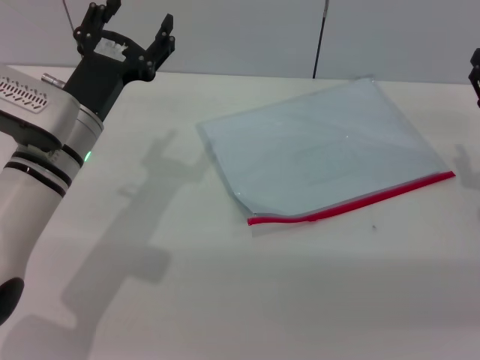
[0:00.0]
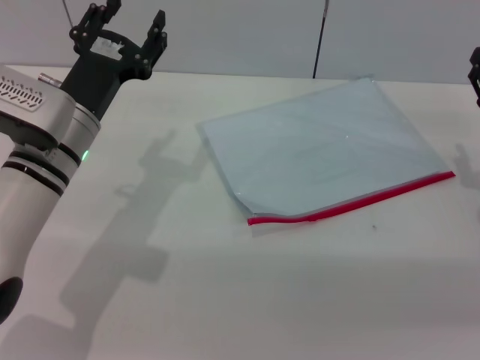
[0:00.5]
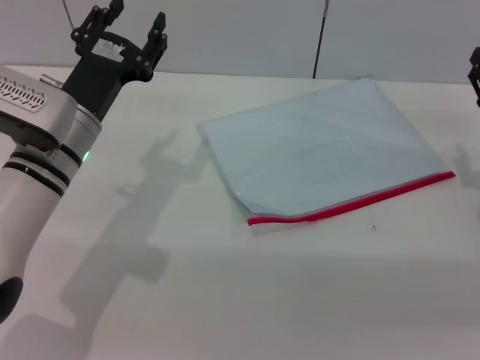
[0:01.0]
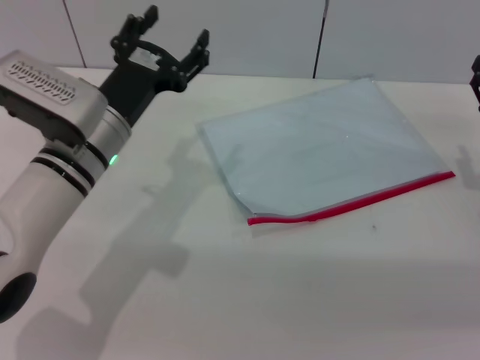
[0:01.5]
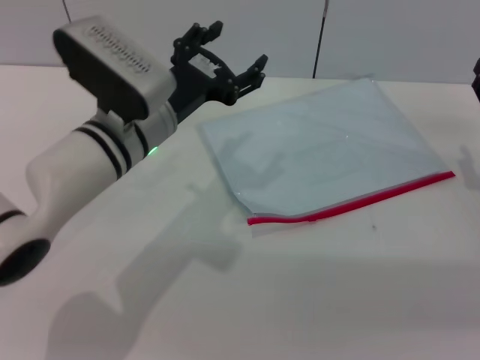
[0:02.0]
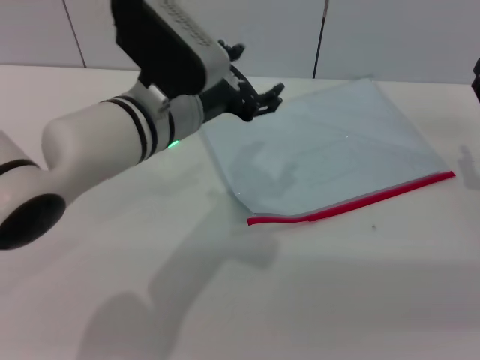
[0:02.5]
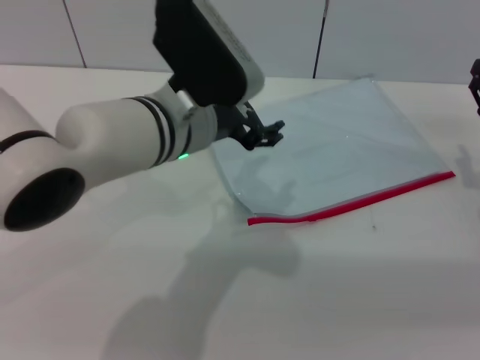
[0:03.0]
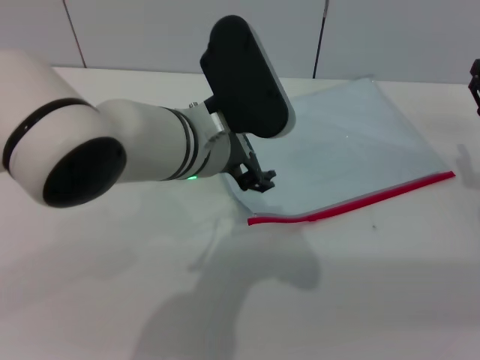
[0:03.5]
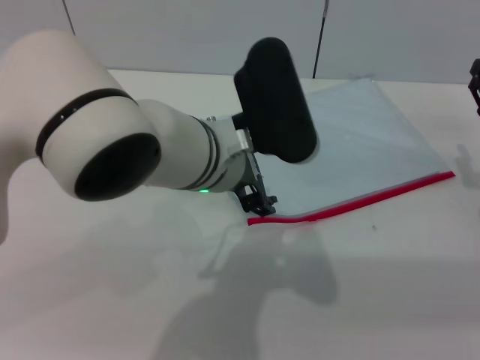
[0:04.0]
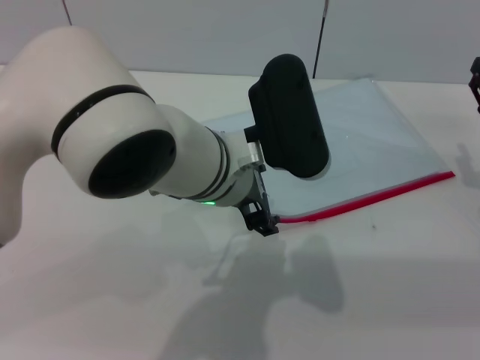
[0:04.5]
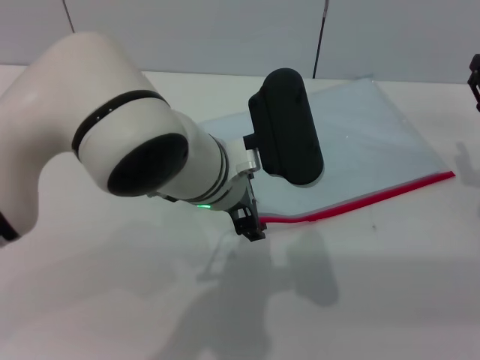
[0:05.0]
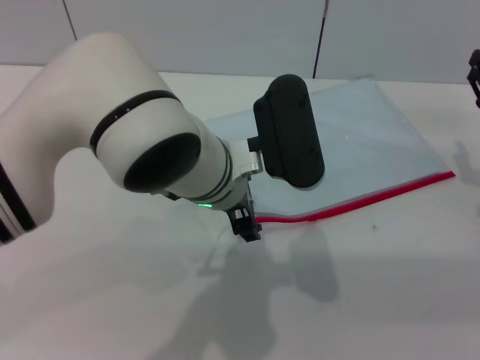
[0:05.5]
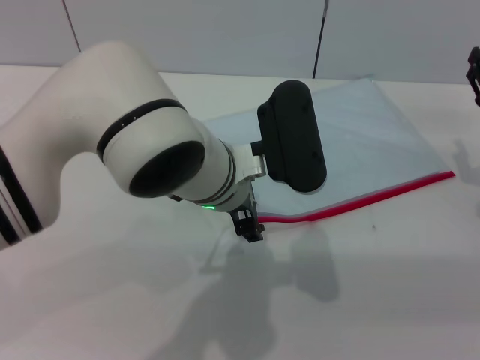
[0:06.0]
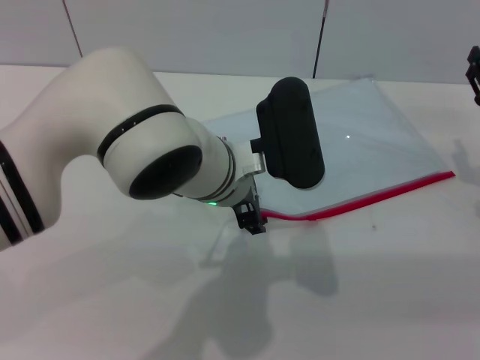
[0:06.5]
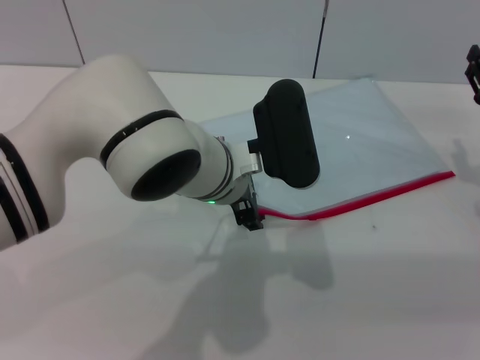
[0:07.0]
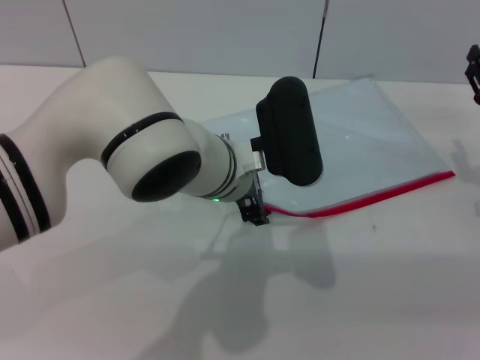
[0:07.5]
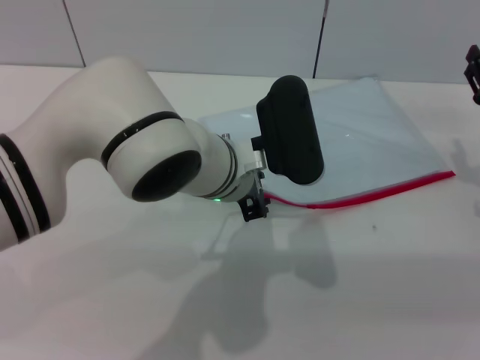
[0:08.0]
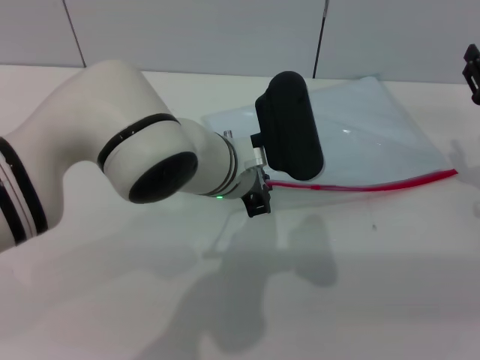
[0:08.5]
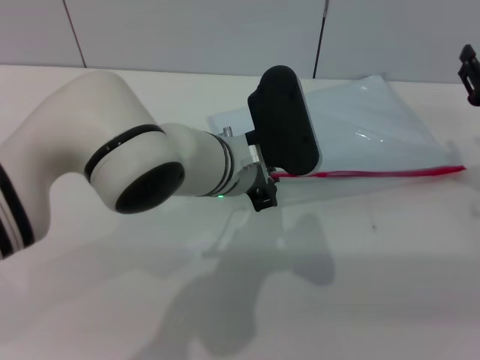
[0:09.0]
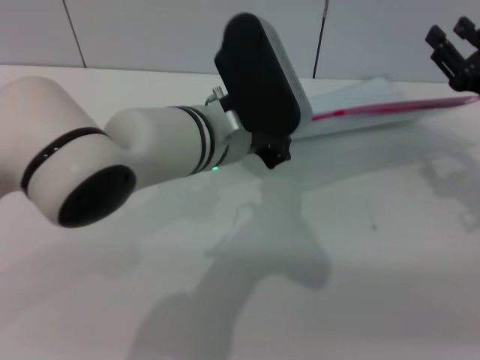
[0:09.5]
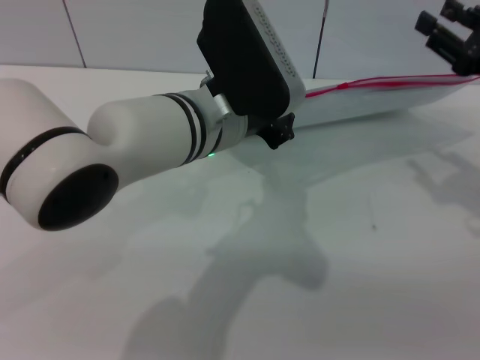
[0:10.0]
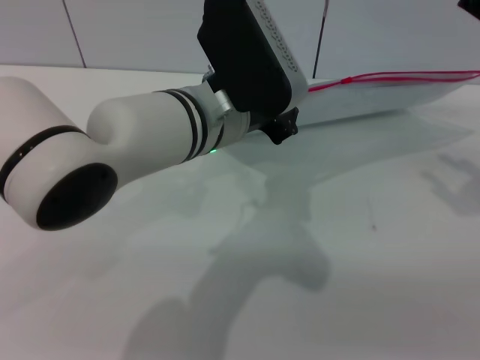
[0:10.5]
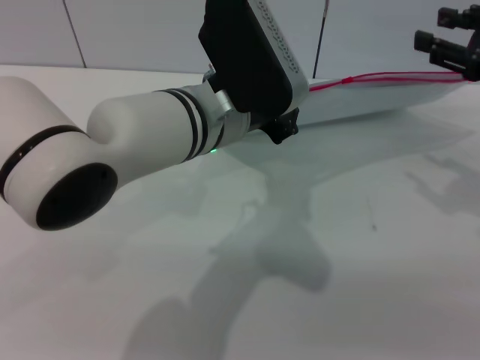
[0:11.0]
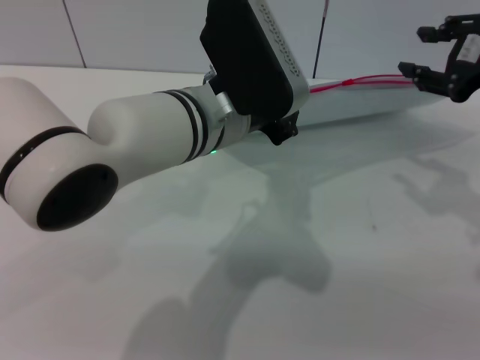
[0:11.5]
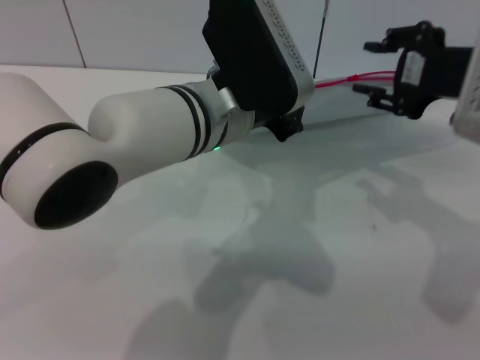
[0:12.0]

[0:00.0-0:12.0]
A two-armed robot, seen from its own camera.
Step, 0:00.0 to 0:09.0: Pick up the transparent plastic bag with the left gripper.
0:00.0 to 0:02.0: The left gripper goes roughly 5 cm to the right.
0:02.0 to 0:04.0: The left gripper heads to the right, covering approximately 10 cm.
0:04.0 to 0:06.0: The grippers stay close to where they were, moving slightly.
0:06.0 to 0:08.0: The left gripper closes its fingers.
0:08.0 to 0:10.0: The right gripper heads upward, covering some 10 cm; the left gripper changes place by about 5 cm, and closes up.
0:10.0 to 0:12.0: The right gripper moves to the left and upward, approximately 10 cm.

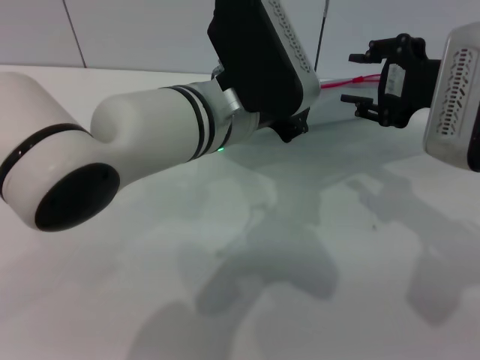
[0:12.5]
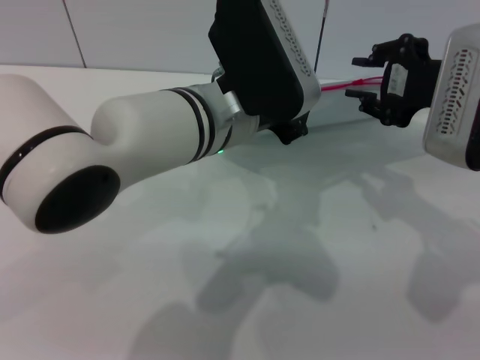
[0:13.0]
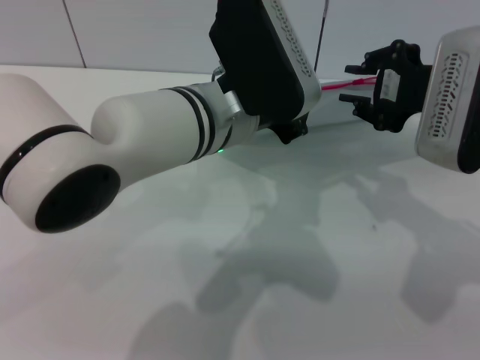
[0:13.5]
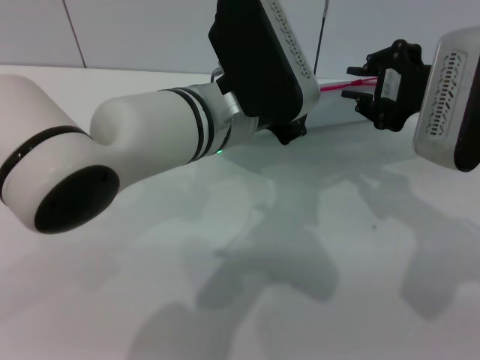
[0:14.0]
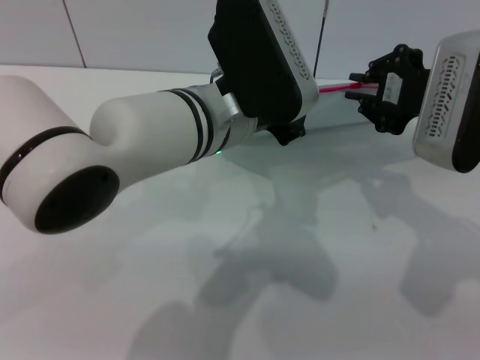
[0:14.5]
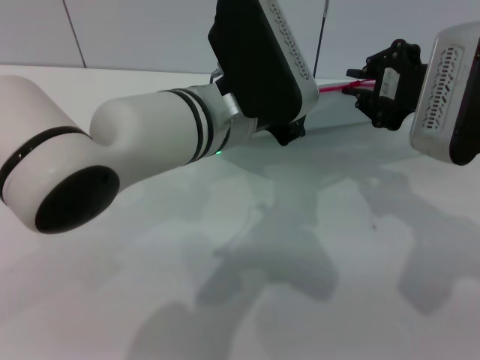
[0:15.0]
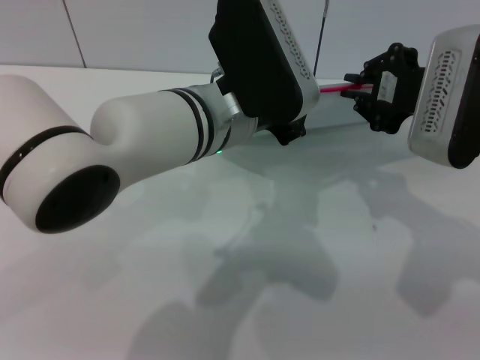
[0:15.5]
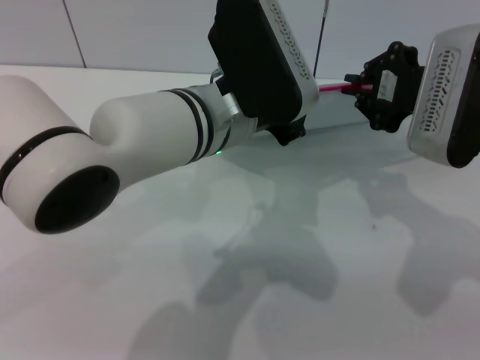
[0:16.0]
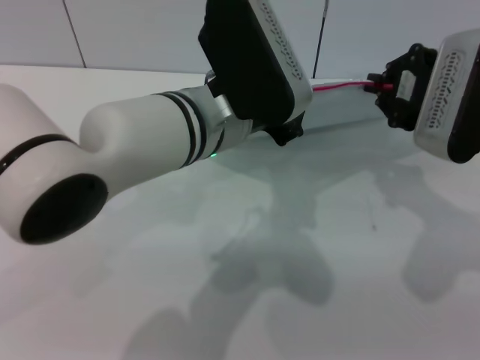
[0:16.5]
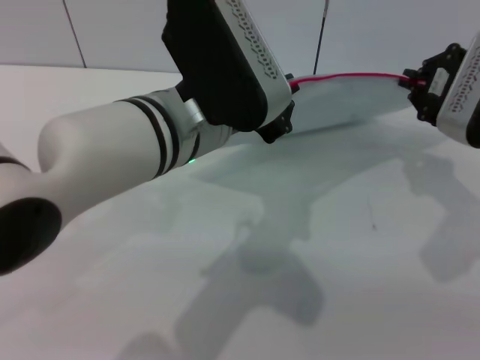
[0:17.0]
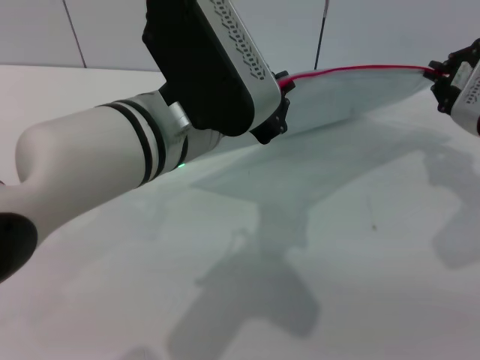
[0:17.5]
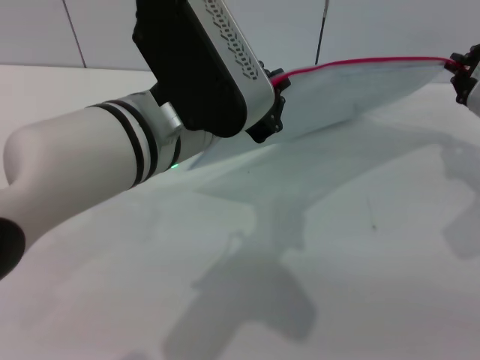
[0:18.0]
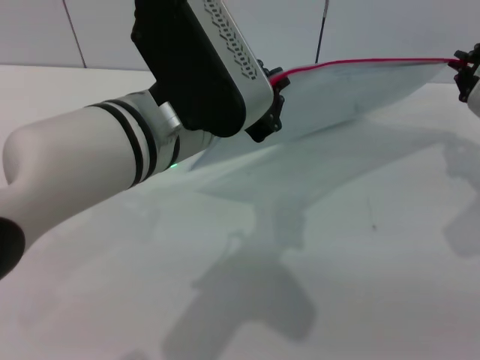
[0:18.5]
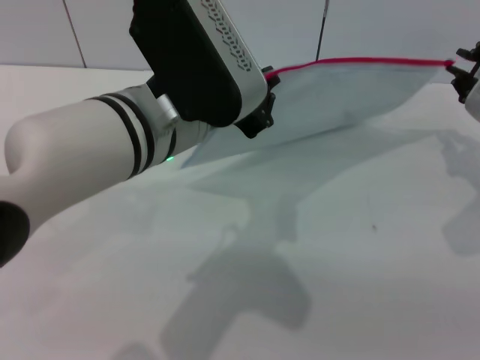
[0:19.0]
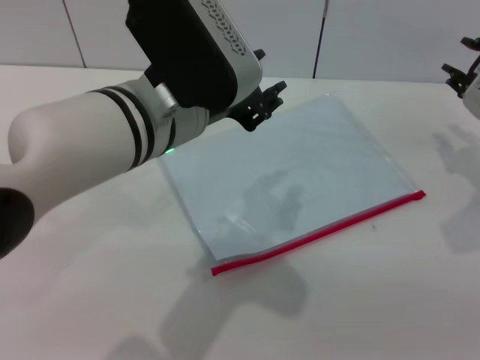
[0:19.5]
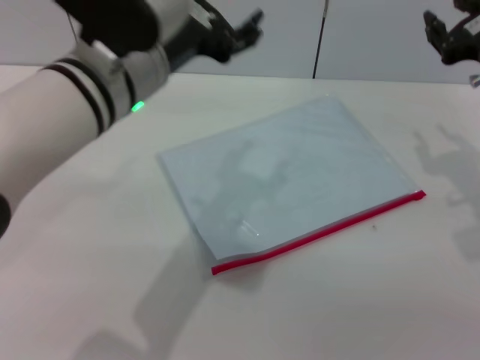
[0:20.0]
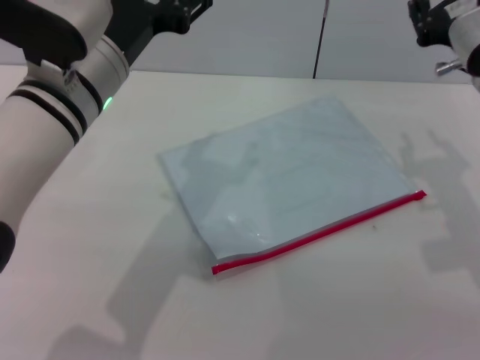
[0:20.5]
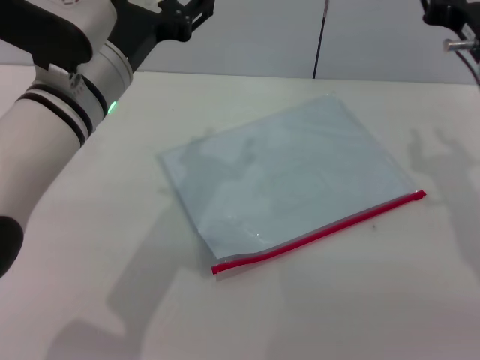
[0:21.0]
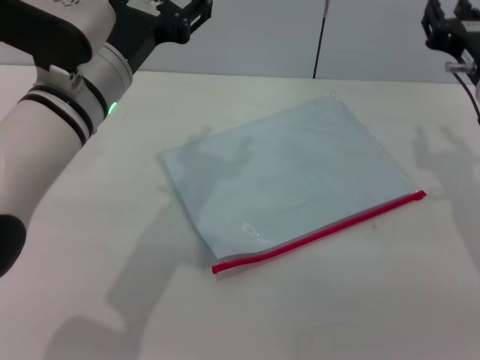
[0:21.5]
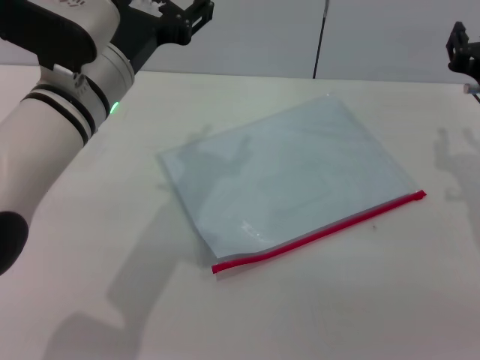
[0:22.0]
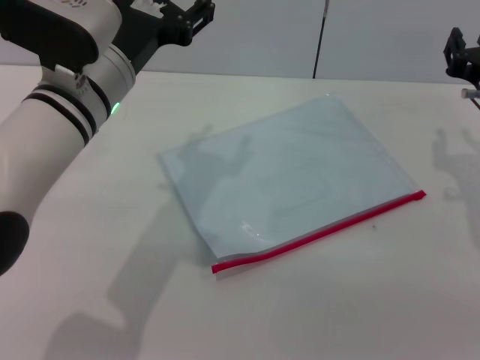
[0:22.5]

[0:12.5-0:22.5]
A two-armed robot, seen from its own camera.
Step, 0:12.5 to 0:19.5: Pulling up the zipper on the transparent plastic bag with the right gripper to close it.
Step, 0:20.0 to 0:20.5: Place the transparent plastic bag.
0:12.5 to 0:14.5: The right gripper closes up.
0:14.5 to 0:16.5: There are only small adjustments of the grippers.
0:16.5 to 0:18.5: The right gripper moves to the right, approximately 5 cm. The left gripper shifts by some 5 cm.
0:18.5 to 0:20.5: The grippers both shift to the left by roughly 5 cm. The right gripper opens. Meanwhile the left gripper opens.
0:20.5 to 0:22.5: The right gripper shifts roughly 5 cm downward.
